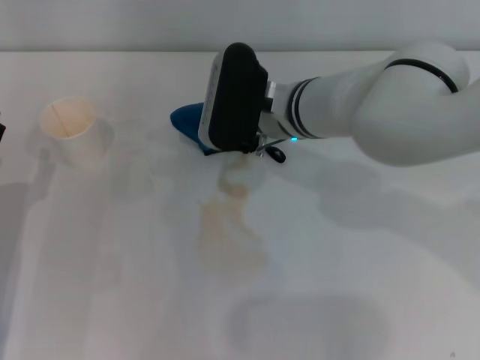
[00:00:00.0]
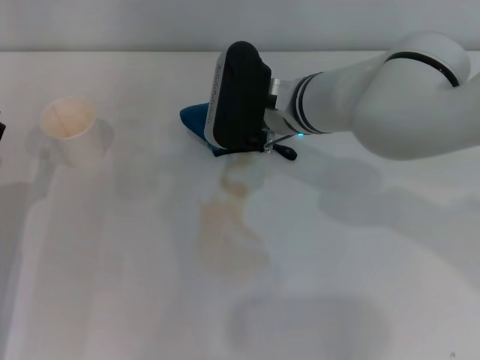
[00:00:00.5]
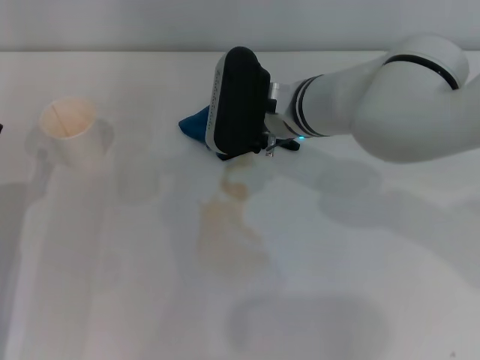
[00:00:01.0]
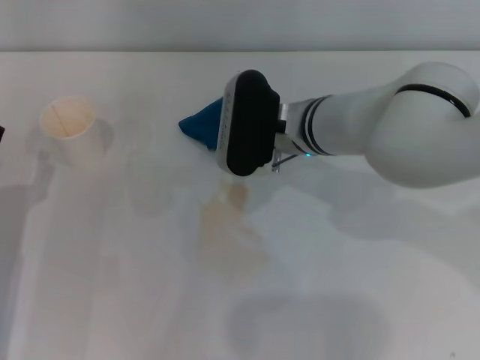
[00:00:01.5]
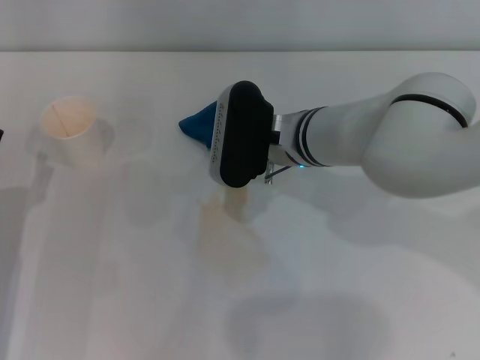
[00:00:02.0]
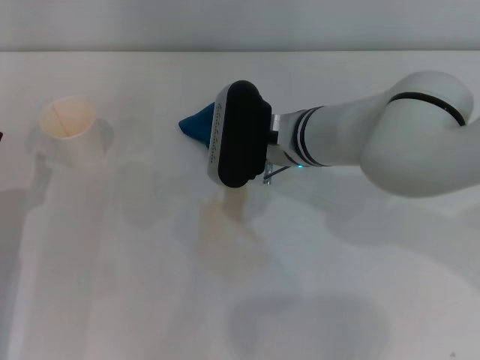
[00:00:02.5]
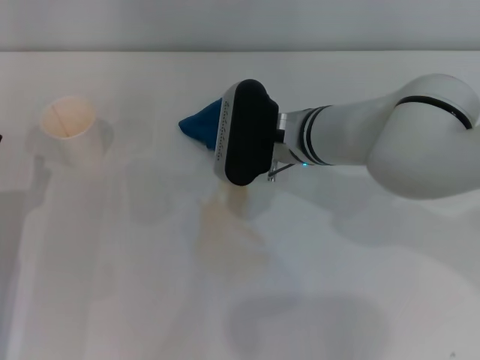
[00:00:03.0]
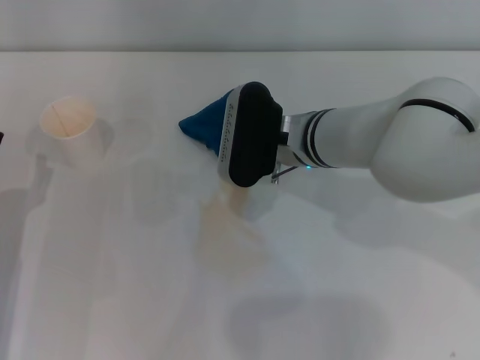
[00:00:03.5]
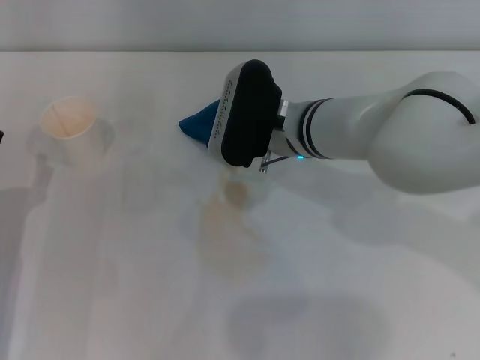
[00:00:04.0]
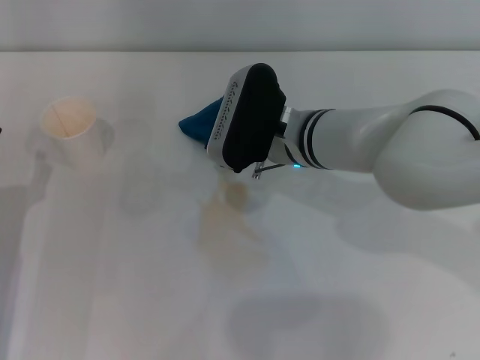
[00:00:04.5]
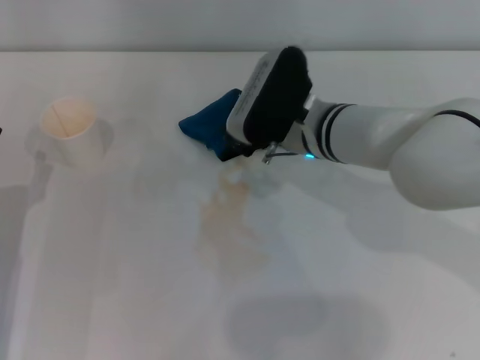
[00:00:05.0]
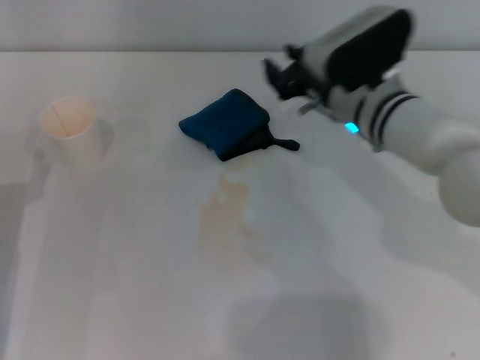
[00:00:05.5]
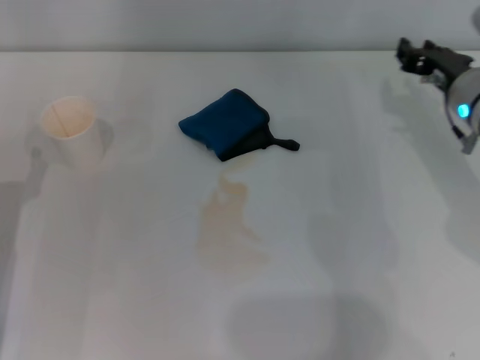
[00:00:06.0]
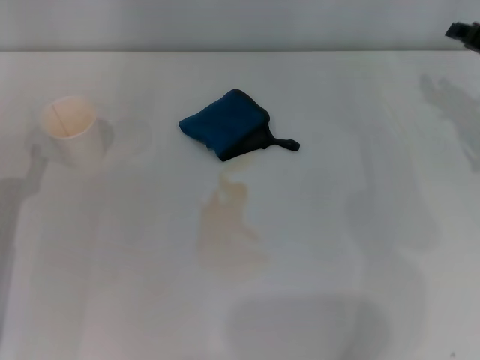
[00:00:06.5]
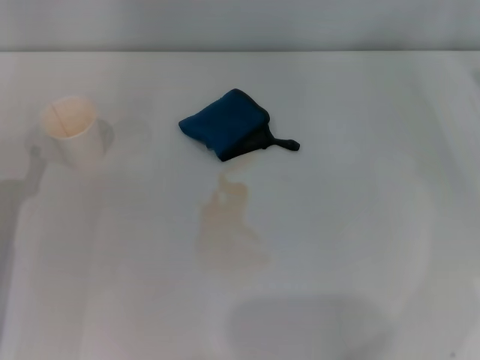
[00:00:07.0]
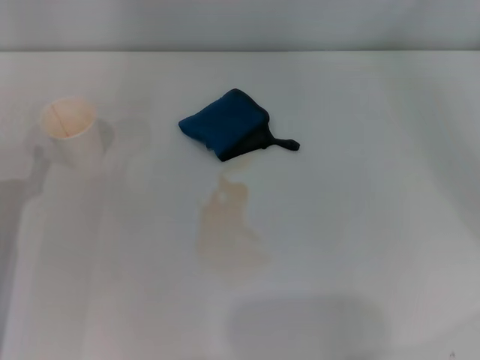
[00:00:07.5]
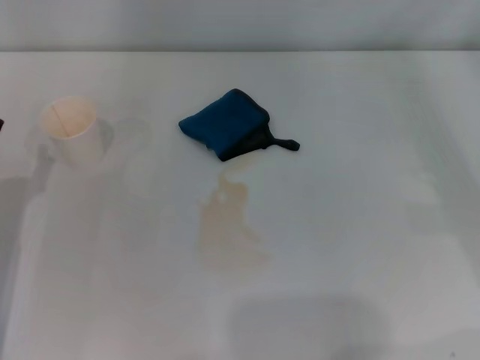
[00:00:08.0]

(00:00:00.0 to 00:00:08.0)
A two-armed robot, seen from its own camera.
00:00:00.0 - 00:00:02.0: The right gripper opens its fingers.
00:00:02.0 - 00:00:04.0: There are only small adjustments of the grippers.
00:00:04.0 - 00:00:06.0: The right gripper travels to the right by about 20 cm.
00:00:06.0 - 00:00:08.0: The right gripper shifts some 15 cm to the right and backward.
